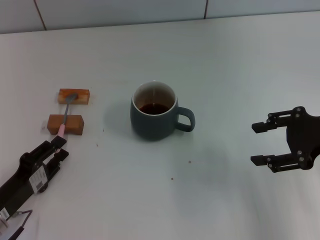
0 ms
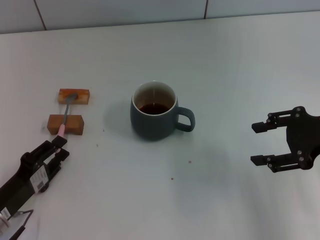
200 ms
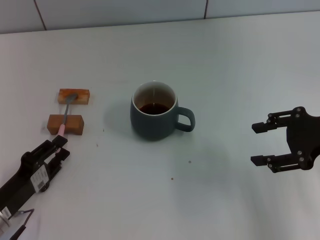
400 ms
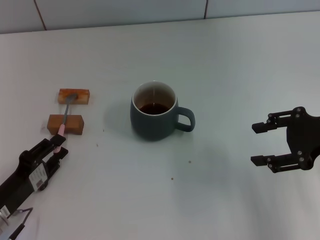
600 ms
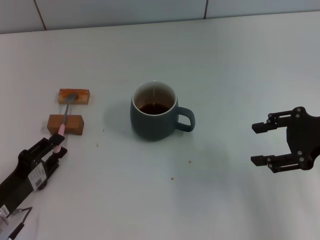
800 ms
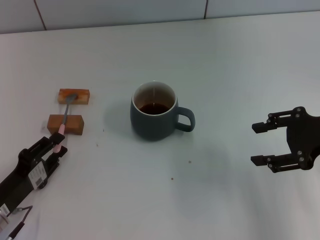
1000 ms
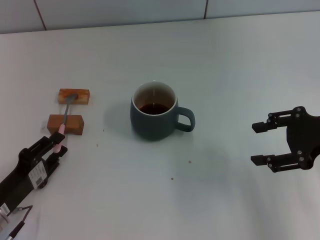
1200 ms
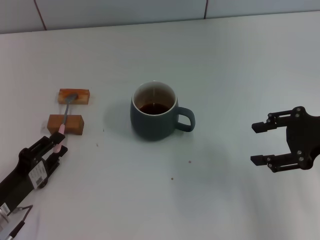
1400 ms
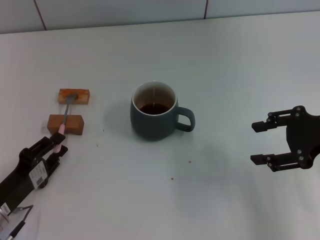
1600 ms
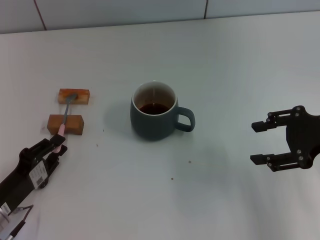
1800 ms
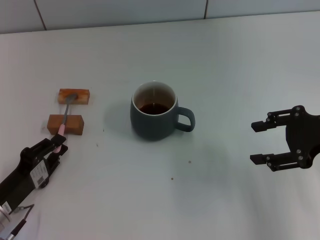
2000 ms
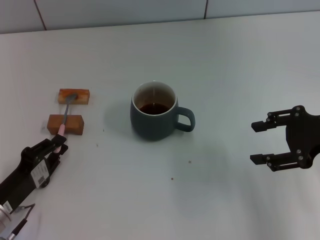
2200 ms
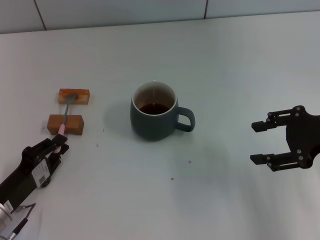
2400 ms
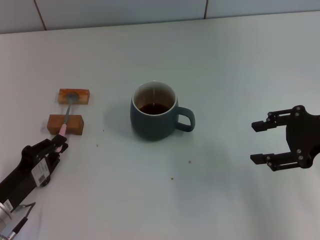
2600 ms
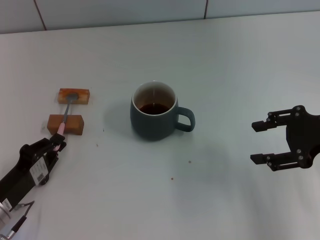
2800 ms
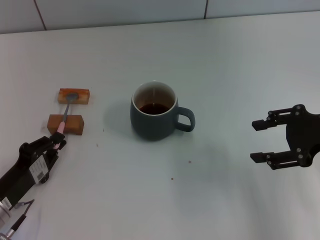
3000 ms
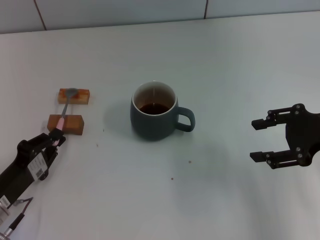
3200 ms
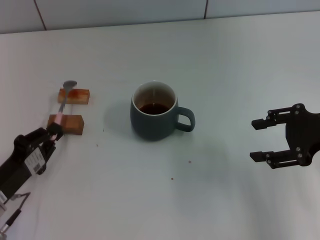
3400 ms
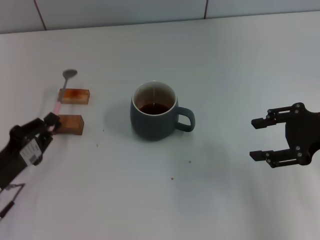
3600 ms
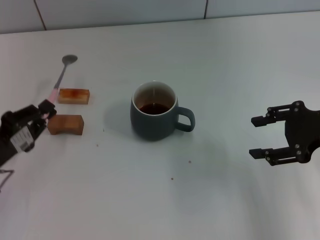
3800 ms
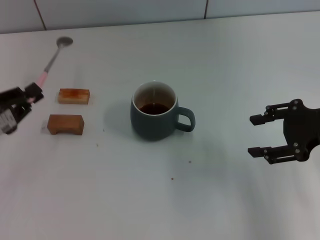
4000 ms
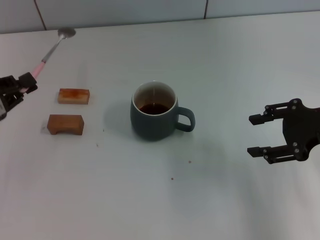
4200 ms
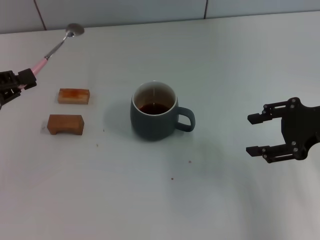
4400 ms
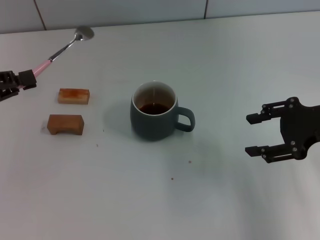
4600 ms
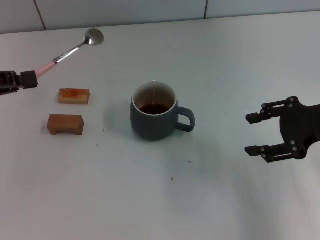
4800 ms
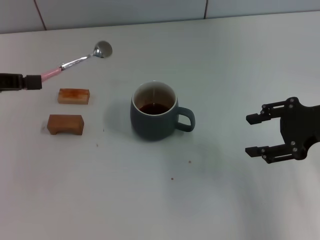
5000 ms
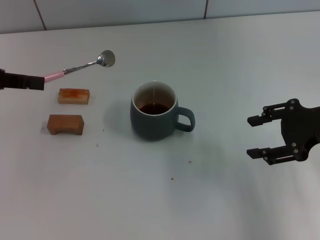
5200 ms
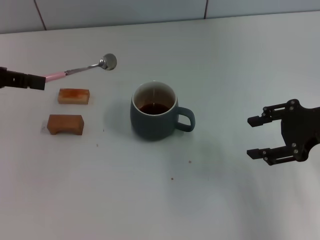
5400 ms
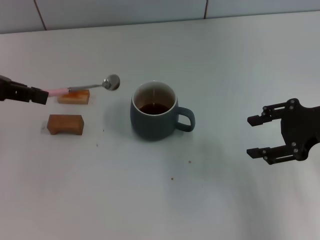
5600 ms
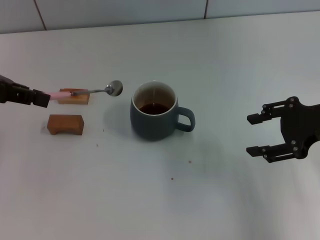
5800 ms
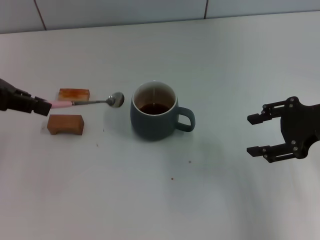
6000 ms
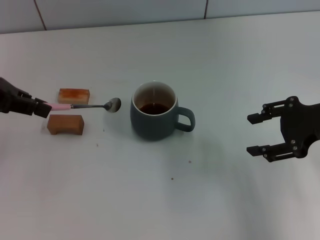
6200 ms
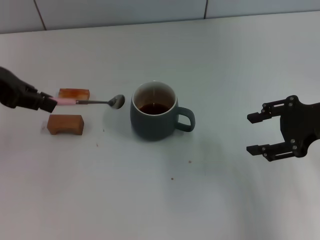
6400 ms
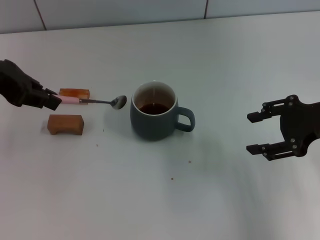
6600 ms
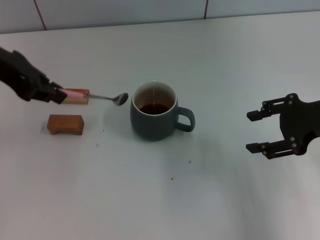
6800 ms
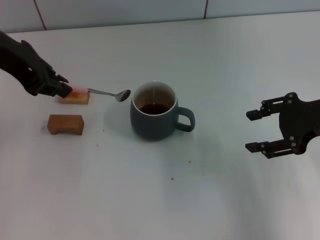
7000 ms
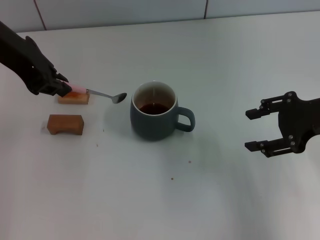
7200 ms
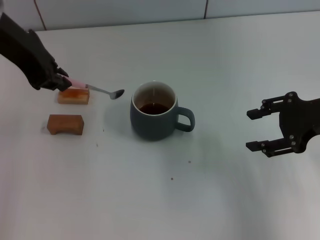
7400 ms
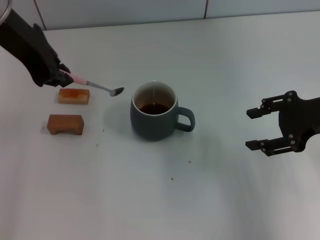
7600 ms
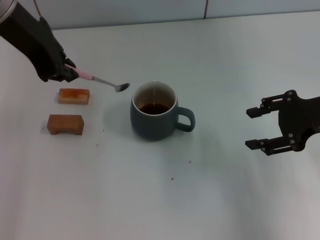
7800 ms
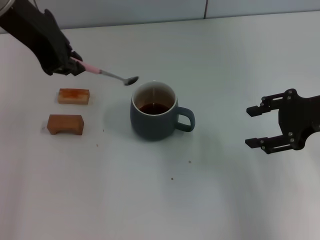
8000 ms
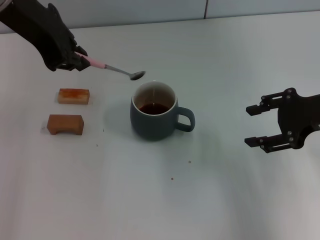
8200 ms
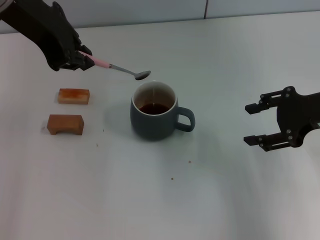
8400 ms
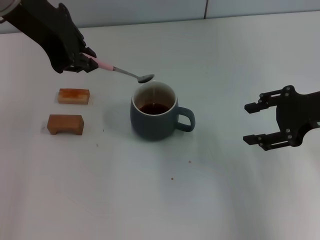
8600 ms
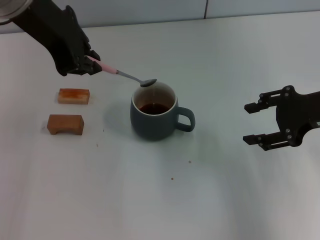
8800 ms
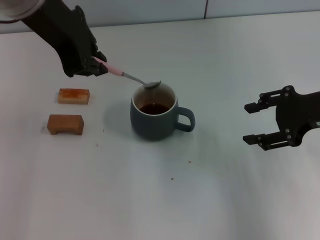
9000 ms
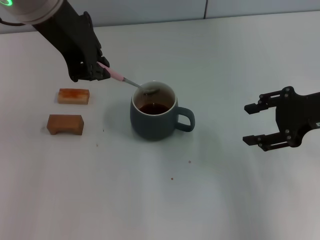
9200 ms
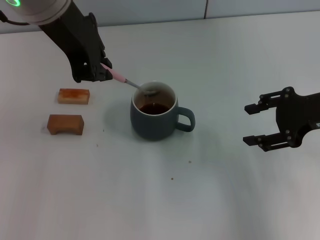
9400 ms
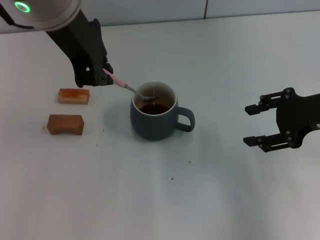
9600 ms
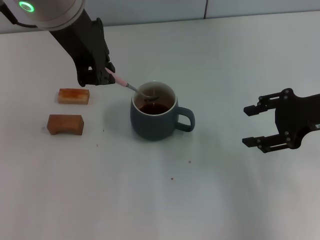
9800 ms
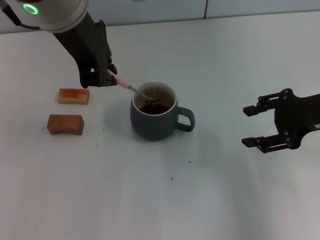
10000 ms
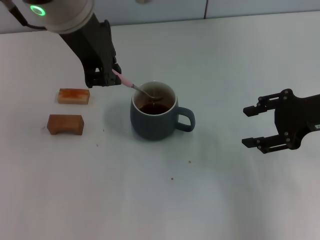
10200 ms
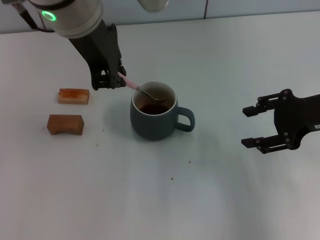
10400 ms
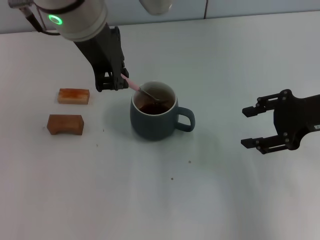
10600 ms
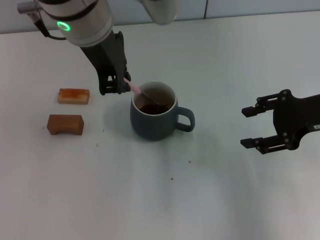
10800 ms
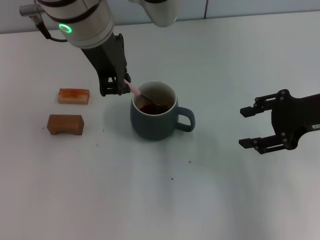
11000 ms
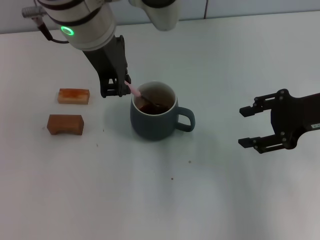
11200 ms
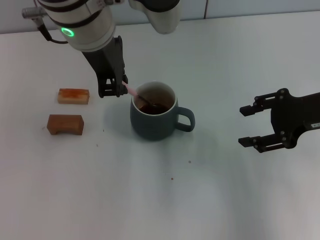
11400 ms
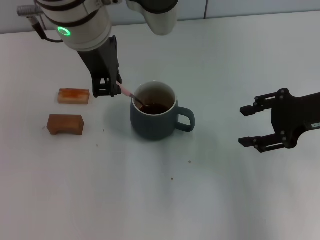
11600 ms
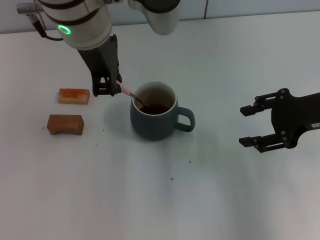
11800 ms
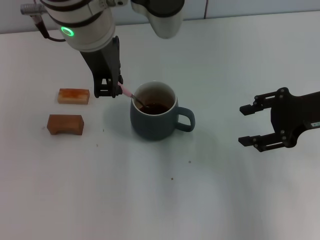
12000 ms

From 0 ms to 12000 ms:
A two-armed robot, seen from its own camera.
Task of the whole recording: Move the grey cup to the center, lift the pink spoon, stir it three times in the cup, and put the spoon into the cup.
Step, from 0 ms to 3200 ms: Pick up the spoon with the left gripper.
From 0 ms to 1600 ms: Both grippers stay about where they are.
From 1600 ms to 3000 ms: The left gripper closes up.
From 3000 ms to 4400 ms: The left gripper goes approximately 20 cm upward, forward and to the left.
From 4400 ms to 6000 ms: The left gripper is displaced upward and forward by about 10 cm.
From 6000 ms to 7600 ms: The left gripper shifts some 15 cm to the right and upward.
From 7600 ms to 9000 ms: The left gripper moves roughly 5 cm.
From 9000 ms to 10400 ms: The left gripper shifts roughly 5 cm to the right.
From 10400 ms to 12000 ms: The grippers move only a little.

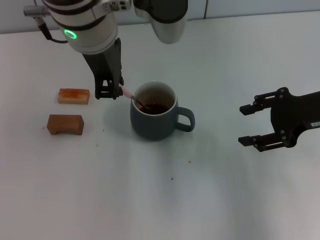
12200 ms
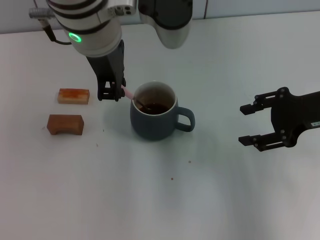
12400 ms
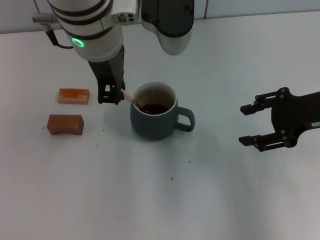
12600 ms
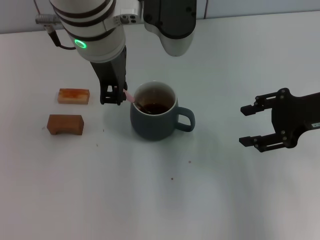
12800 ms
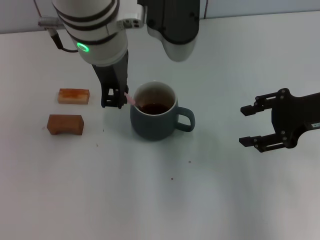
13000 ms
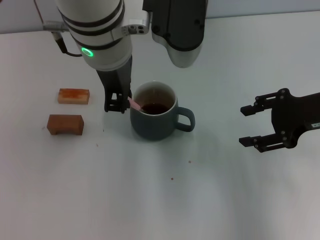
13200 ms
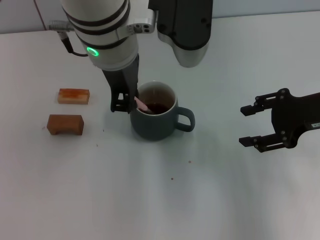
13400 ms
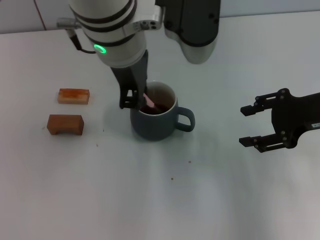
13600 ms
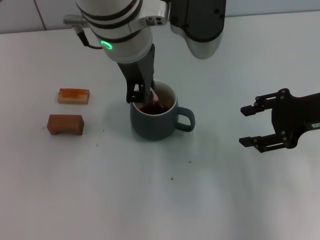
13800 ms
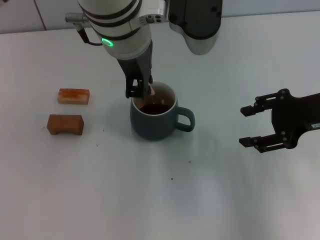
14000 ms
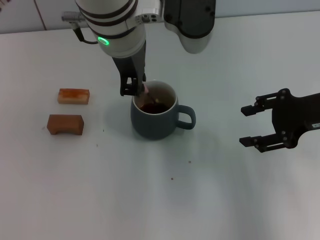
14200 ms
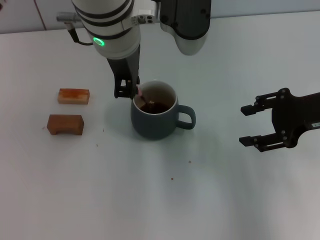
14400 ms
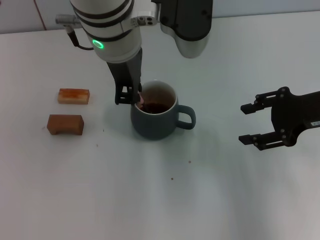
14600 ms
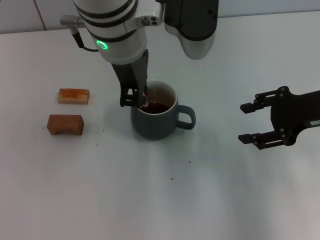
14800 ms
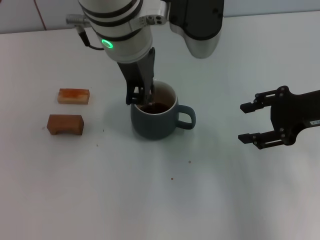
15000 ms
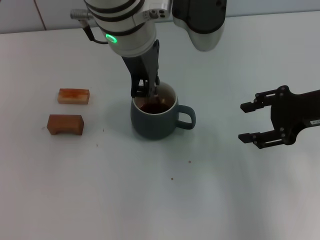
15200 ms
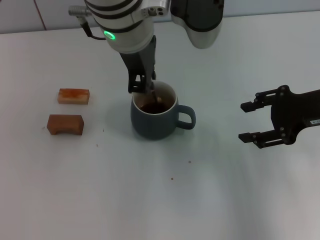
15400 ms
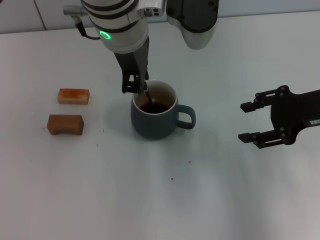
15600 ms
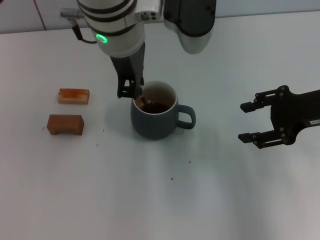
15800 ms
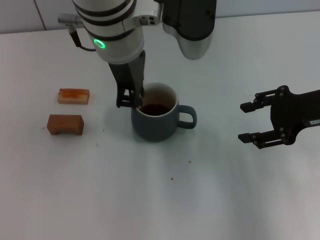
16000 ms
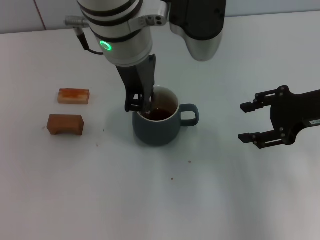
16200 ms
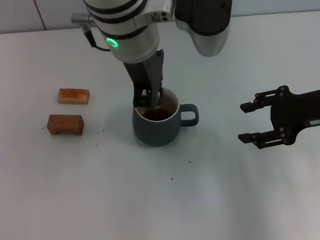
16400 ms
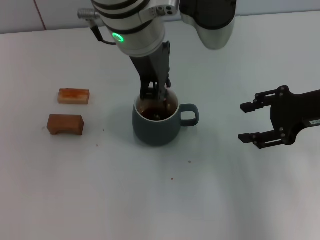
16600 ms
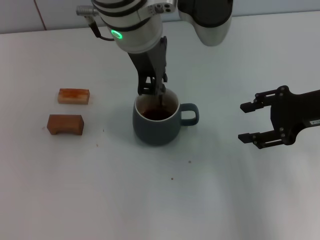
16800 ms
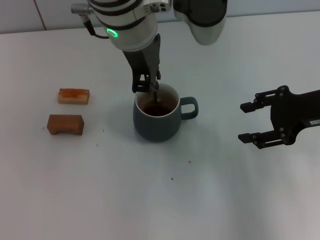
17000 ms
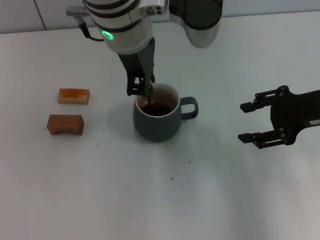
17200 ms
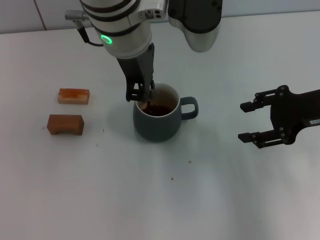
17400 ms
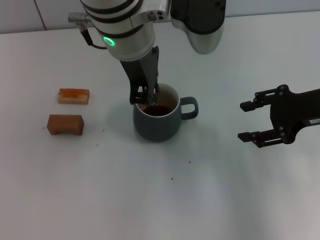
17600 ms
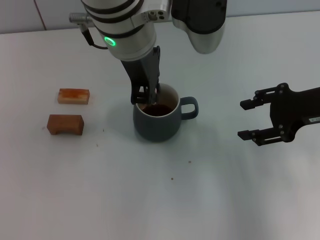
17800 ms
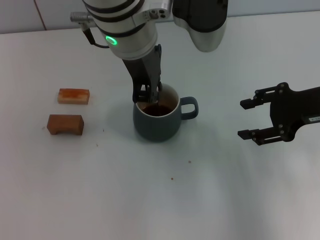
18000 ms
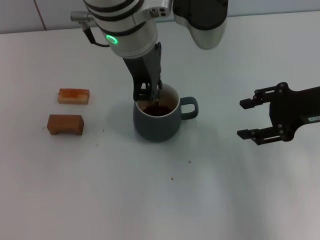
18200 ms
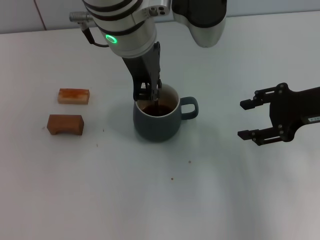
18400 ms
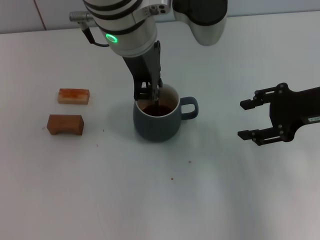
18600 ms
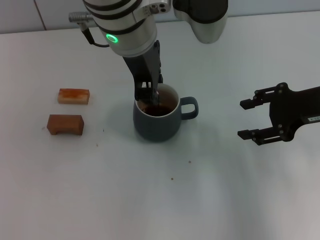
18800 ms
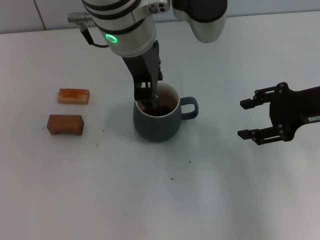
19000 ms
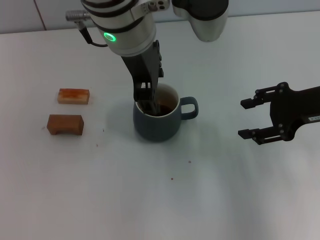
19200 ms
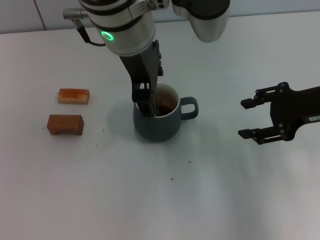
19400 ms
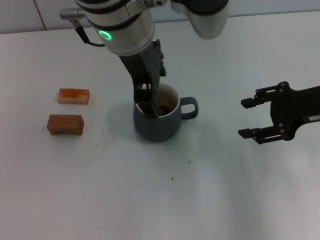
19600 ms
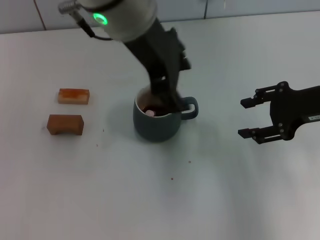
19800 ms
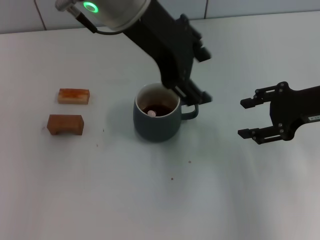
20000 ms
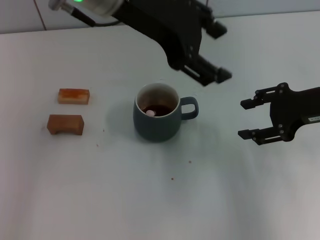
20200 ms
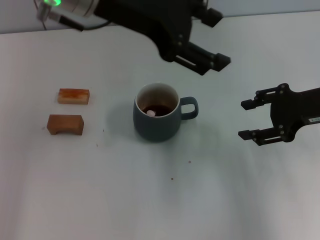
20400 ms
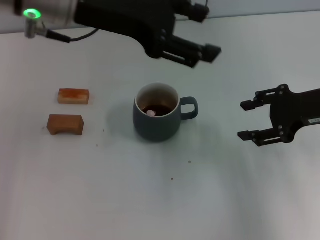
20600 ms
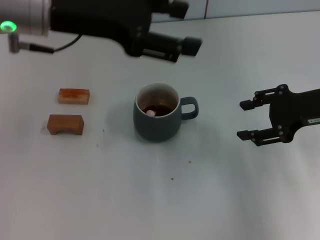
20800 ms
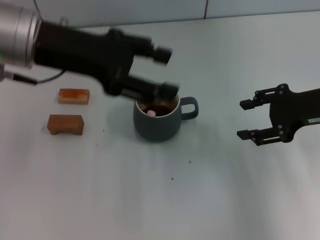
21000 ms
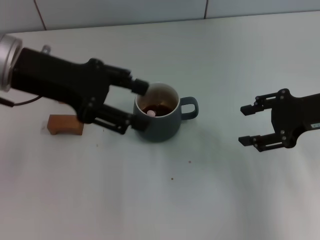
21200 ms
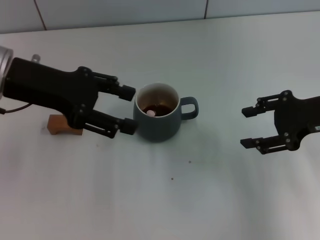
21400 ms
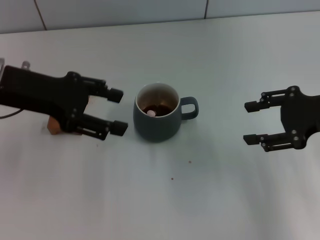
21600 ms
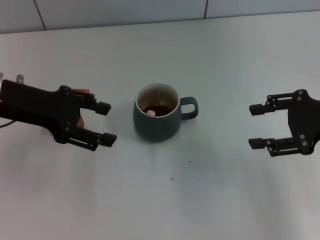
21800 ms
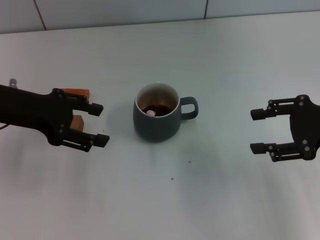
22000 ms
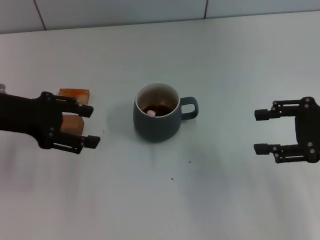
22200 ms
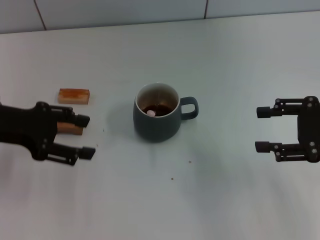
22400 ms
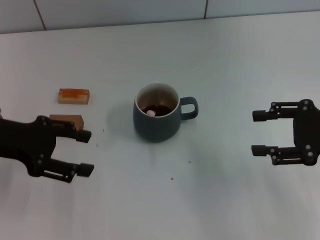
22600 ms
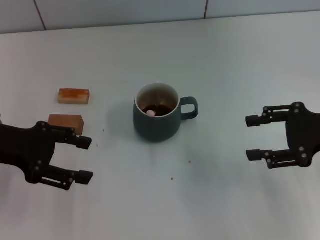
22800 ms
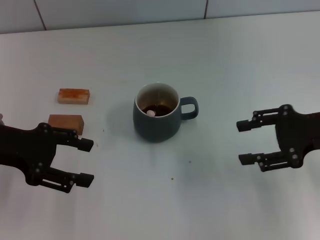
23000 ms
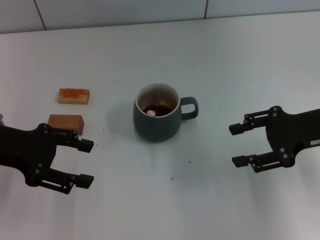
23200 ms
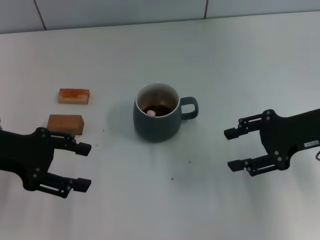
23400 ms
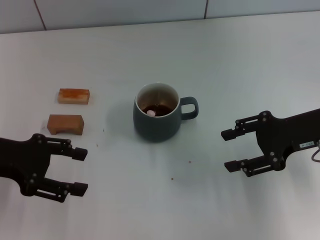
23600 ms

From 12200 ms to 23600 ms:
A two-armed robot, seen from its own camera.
Task of the whole recording: Move the grey cup to the center, lift the pink spoon, stir it three times in the cup, and put the spoon into the cup.
Step, from 12200 ms to 19600 ms: Stir the coffee in the cup with the left gripper.
From 12200 ms to 15000 ms: The grippers make only small movements.
From 15000 ms to 16400 ms: Both grippers stay put.
From 16400 ms to 17800 ms: The grippers make only small movements.
From 17800 ms to 19400 ms: The left gripper opens.
From 19400 ms to 20800 ms: The left gripper is displaced to the left by roughly 15 cm.
From 20800 ms to 22200 ms: The right gripper changes place by approximately 5 cm. The left gripper travels to the left and downward by approximately 15 cm.
From 22200 ms to 23600 ms: The right gripper ends up approximately 5 cm from where it was.
